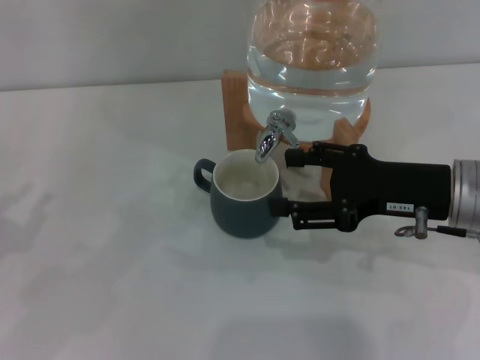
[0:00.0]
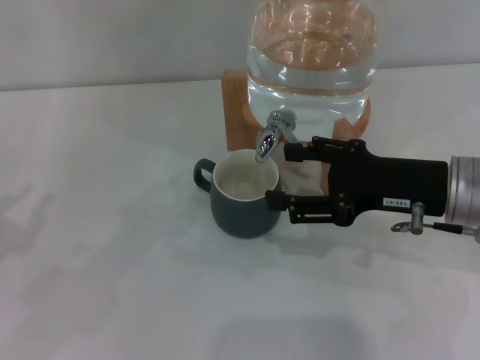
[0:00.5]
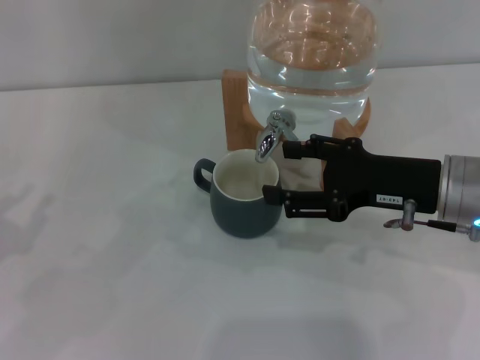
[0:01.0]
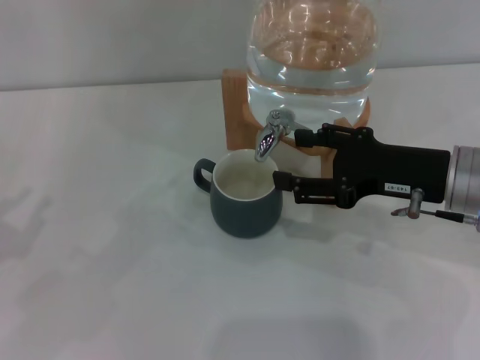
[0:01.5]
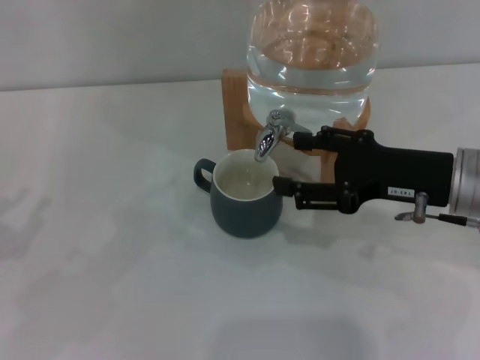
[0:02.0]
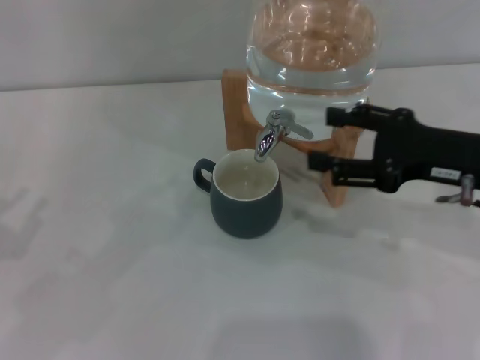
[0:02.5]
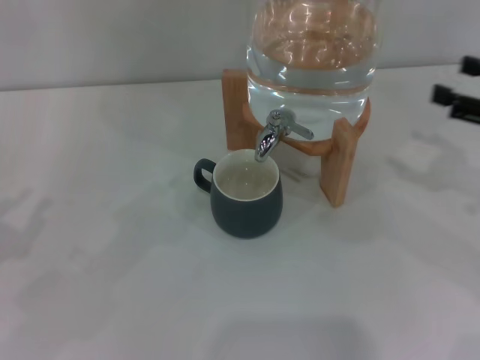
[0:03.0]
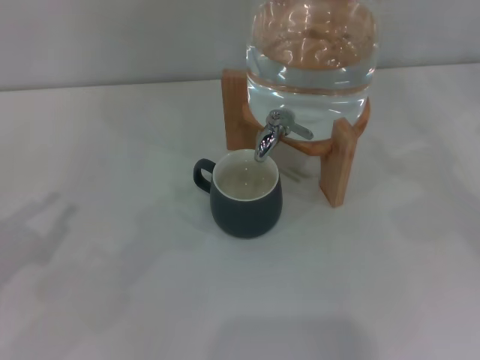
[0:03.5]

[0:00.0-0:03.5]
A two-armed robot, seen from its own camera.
Task of the whole recording: the left gripper pick up the black cup and place it horizontally under the faucet, the right gripper turn on the faucet to fill the cup, and then turn off the faucet.
Step, 0:00.0 to 0:02.0: Close the dispenser valve with the right gripper.
0:00.0 to 0:02.0: The grippers stay close to where they were, moving slightly.
0:02.0 to 0:03.5: The right gripper is displaced to the right by about 20 cm.
